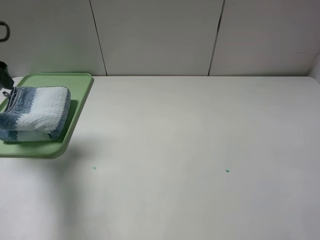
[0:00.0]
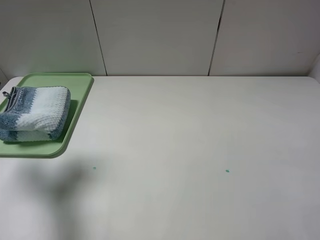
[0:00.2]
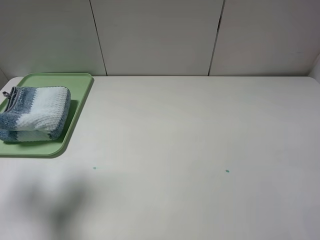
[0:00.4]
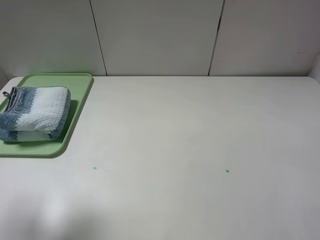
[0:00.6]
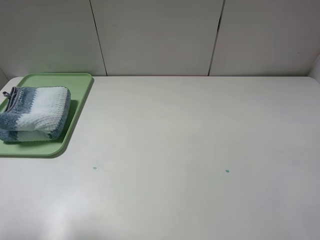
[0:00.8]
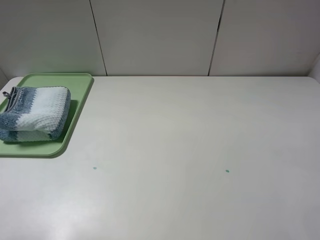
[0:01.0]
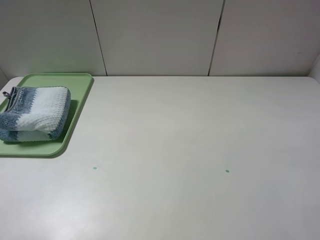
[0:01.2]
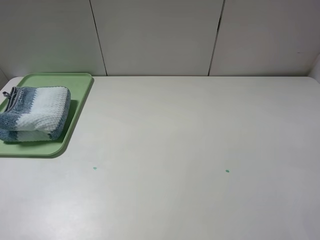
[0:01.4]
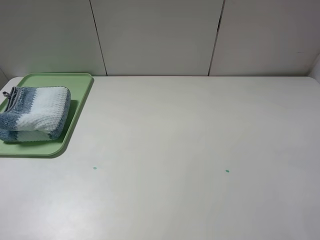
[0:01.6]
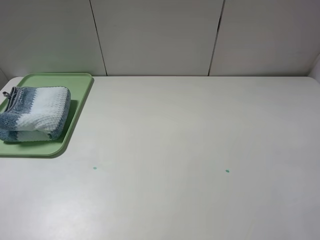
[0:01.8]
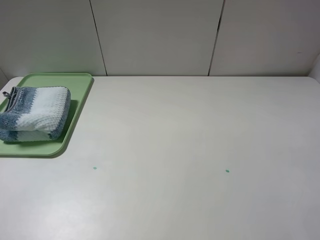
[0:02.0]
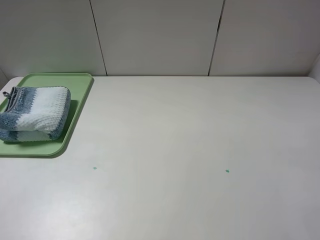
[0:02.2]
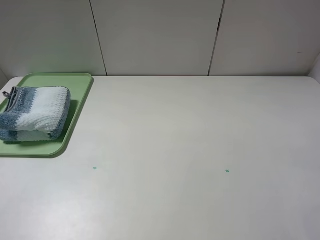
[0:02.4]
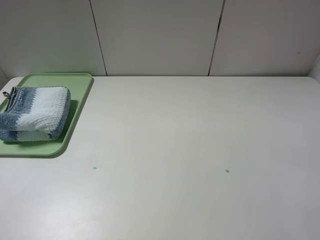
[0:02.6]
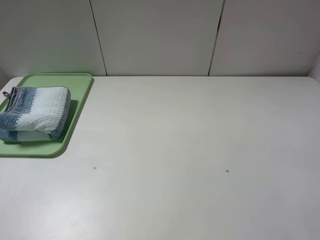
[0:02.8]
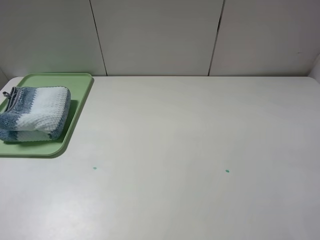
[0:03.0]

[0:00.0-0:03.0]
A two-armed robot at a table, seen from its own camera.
0:00.0 to 0:01.6: The left gripper shifts about 25 cm backward.
